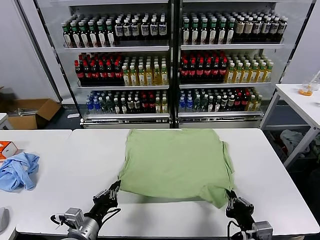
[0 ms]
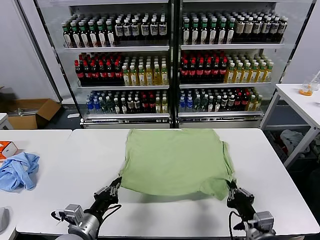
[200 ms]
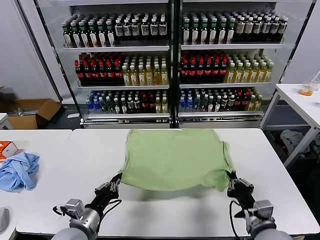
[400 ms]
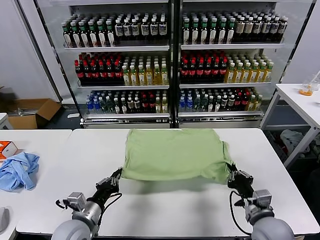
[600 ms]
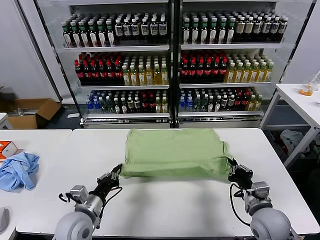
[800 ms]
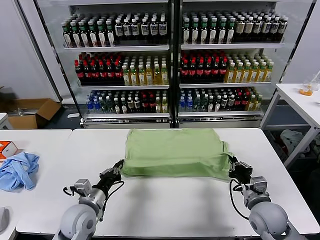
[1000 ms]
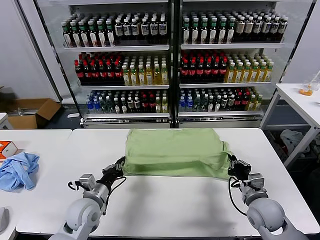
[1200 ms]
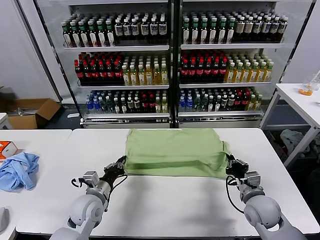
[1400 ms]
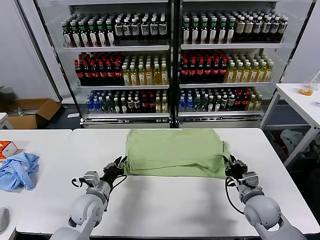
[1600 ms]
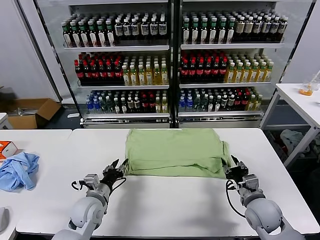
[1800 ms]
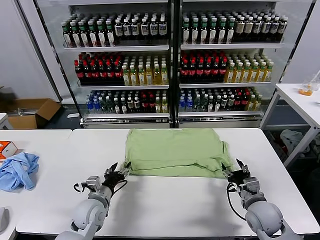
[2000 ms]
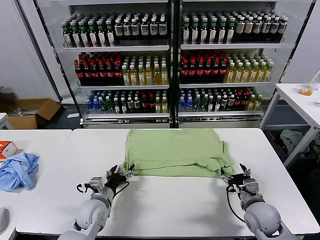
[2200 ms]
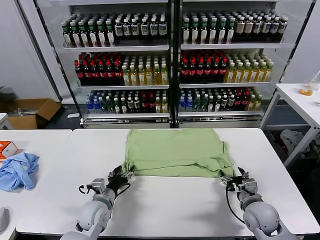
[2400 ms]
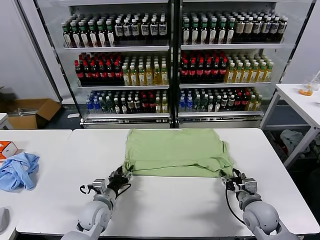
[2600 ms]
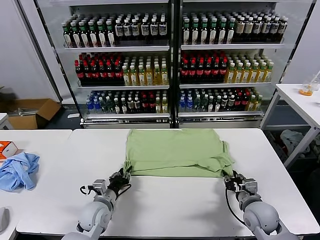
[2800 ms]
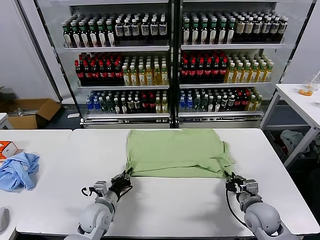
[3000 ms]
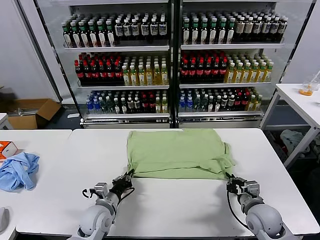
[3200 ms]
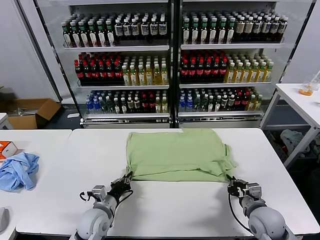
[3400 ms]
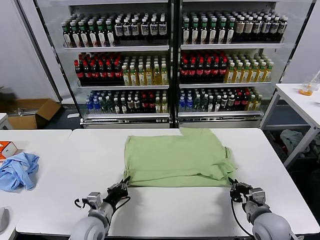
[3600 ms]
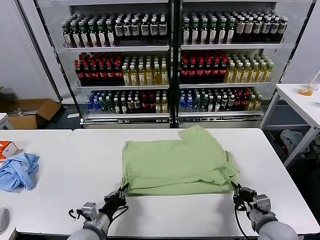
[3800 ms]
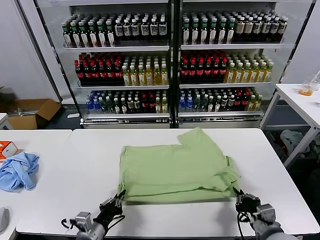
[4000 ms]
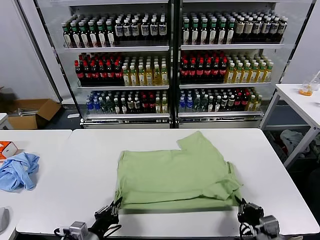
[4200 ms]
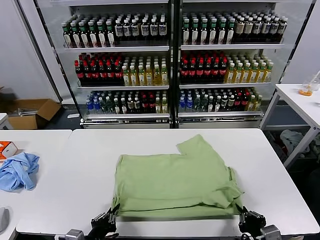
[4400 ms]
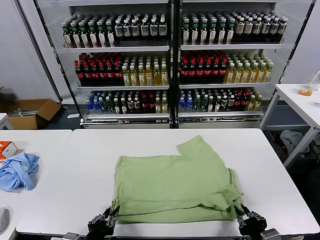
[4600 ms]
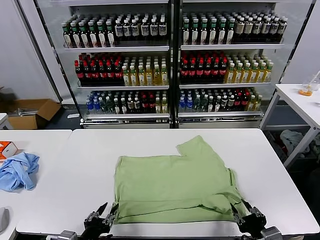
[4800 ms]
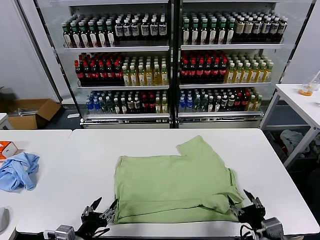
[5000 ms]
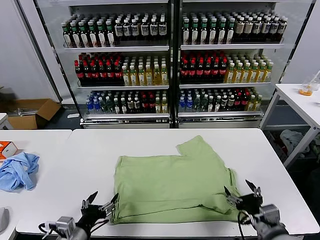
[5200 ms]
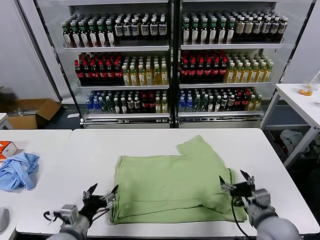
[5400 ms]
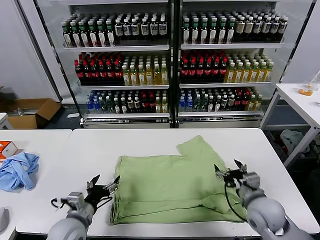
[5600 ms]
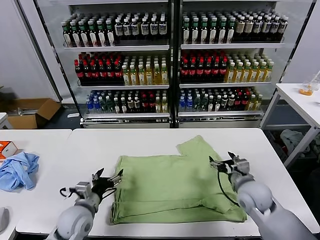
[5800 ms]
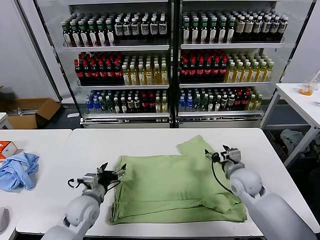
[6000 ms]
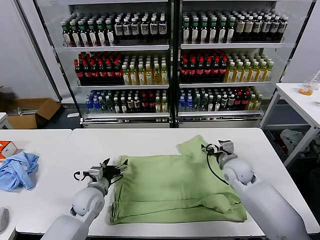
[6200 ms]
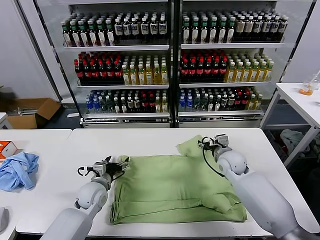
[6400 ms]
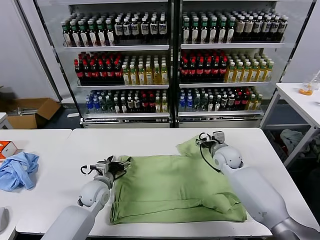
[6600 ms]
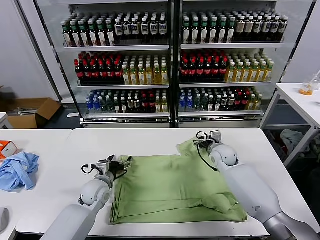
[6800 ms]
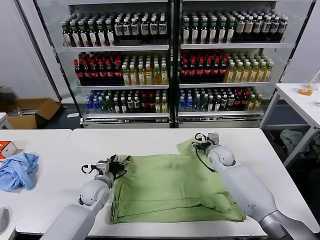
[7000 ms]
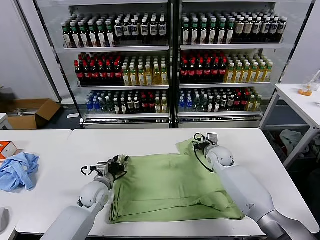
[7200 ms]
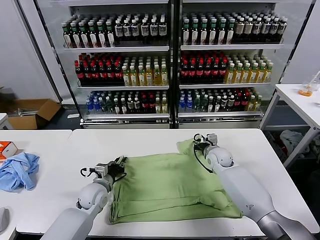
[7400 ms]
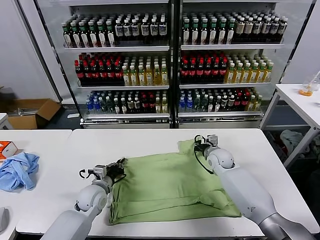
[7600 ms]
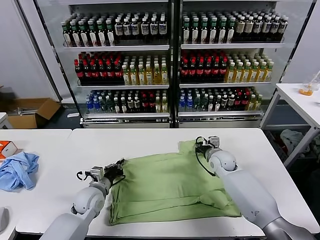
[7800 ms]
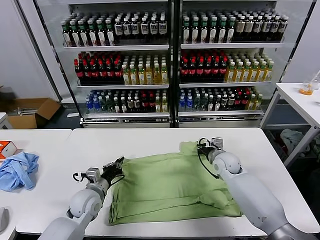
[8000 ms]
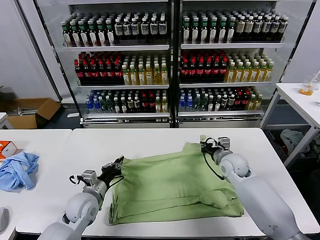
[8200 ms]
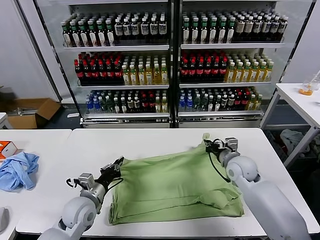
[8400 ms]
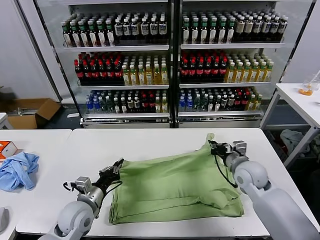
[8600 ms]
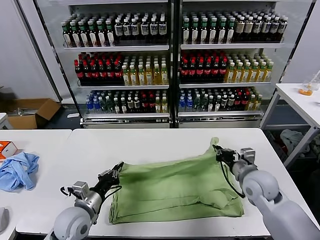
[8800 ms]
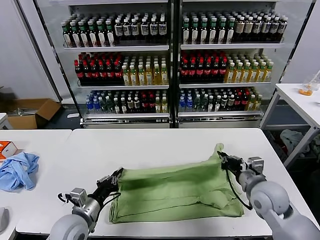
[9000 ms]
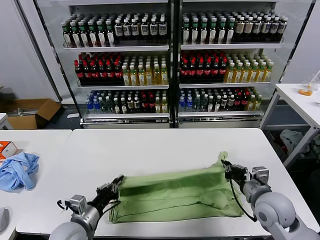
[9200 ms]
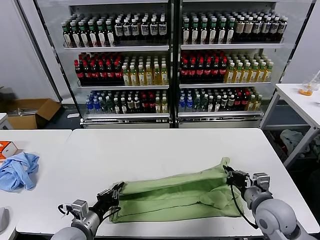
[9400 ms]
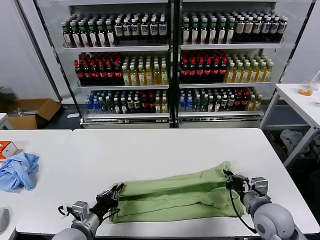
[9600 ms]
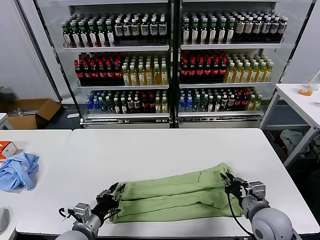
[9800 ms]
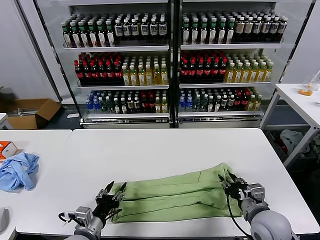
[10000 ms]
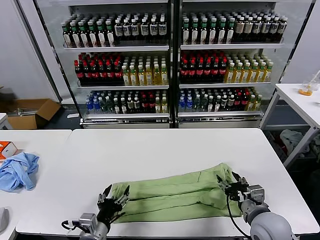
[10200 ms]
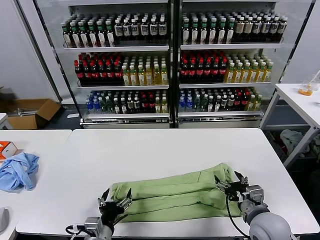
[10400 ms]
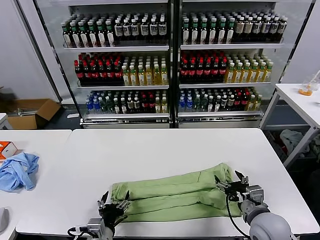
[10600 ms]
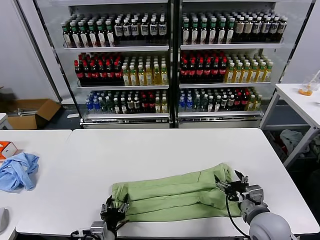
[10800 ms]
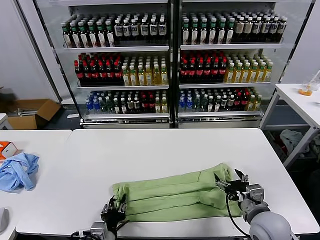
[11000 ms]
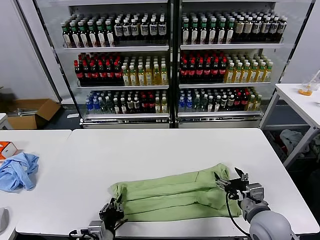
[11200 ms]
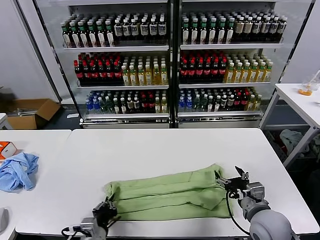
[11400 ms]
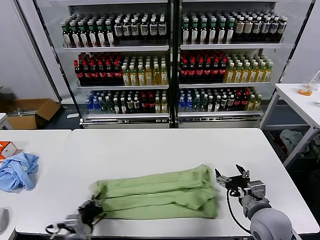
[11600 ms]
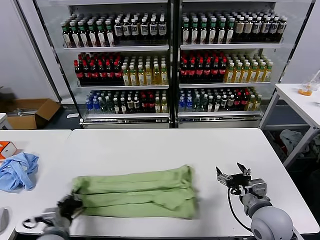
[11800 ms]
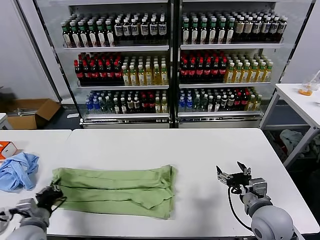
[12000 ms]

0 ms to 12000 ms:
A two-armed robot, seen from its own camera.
Task of the whole recording: fold and organize the clothes.
Step, 0 ms to 1800 ms: use both grippers to drag the lower edge of the fabric forward and fold it over the upper edge.
Step, 2000 ms to 4800 ms: Drag the clothes downward with both gripper.
Step, 5000 ms to 7600 ms: use both grippers simultaneously to clamp the upper edge of the clothing fabric.
Step, 7800 ms to 10000 ms: use both grippers to drag the upper edge of the fabric backward and fold it over the lower edge.
Step, 10200 ms to 11000 ms: use the left gripper to clamp the left edge of the fabric.
0 ms to 1600 ms: Both grippers travel together forward, about 15 cm. The right gripper opens its fingers; the left gripper opens its fingers.
1600 ms to 3000 ms: The left gripper opens, then closes once more. Meanwhile the right gripper closes.
3000 ms to 4400 ms: The grippers both shift backward by about 15 cm.
4400 ms to 6000 ms: The grippers both shift forward by some 25 cm. The left gripper opens up. The right gripper opens.
6000 ms to 7600 ms: The right gripper travels forward by roughly 10 cm, and closes. Meanwhile the left gripper changes place by approximately 5 cm, and closes up.
7600 ms to 9000 ms: The right gripper heads backward and upward, covering some 20 cm. The left gripper moves backward and upward, approximately 15 cm.
9000 ms to 10400 ms: The right gripper travels backward by approximately 5 cm, and opens its fingers, while the left gripper travels backward and to the right by some 10 cm, and opens.
10400 ms to 12000 ms: The left gripper is displaced to the left by about 20 cm, and closes up.

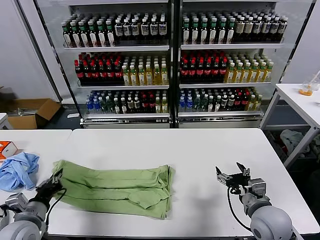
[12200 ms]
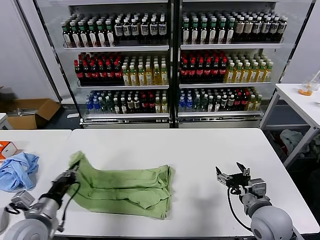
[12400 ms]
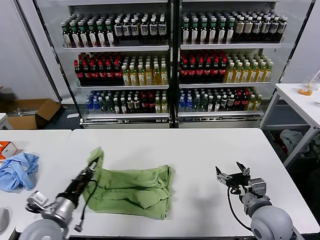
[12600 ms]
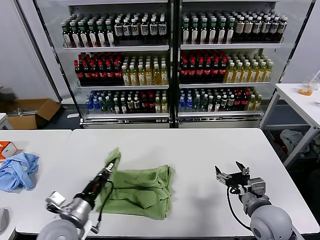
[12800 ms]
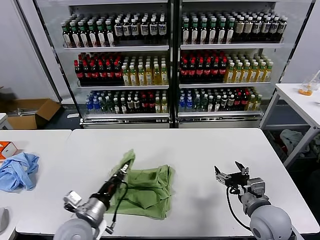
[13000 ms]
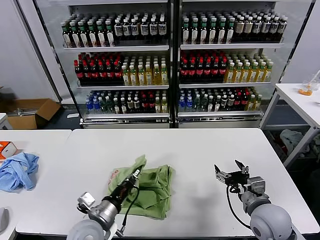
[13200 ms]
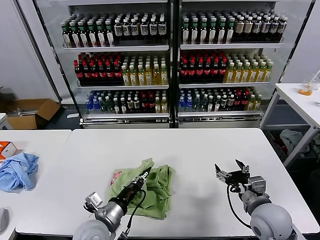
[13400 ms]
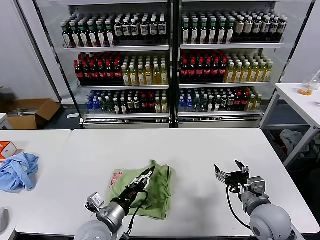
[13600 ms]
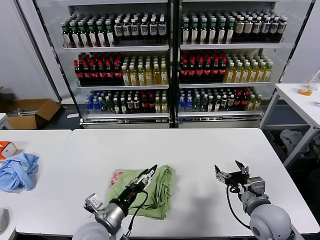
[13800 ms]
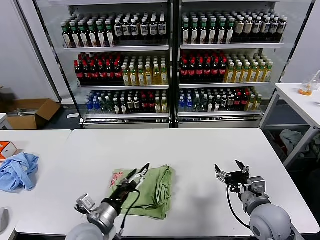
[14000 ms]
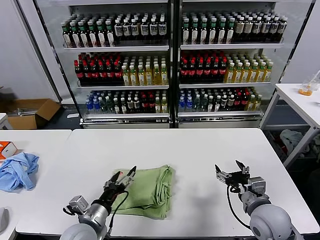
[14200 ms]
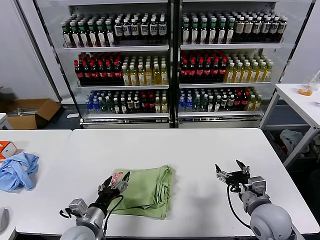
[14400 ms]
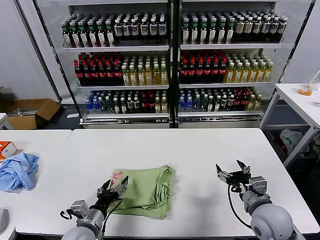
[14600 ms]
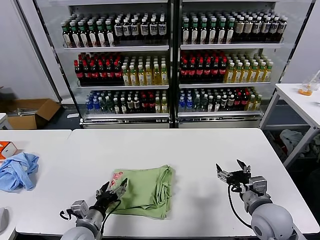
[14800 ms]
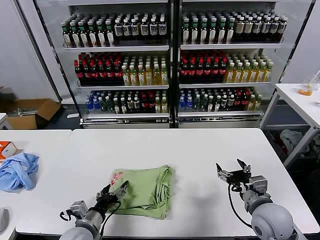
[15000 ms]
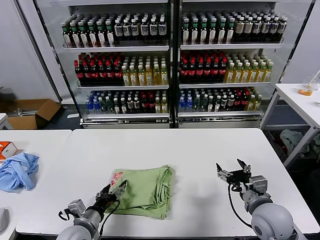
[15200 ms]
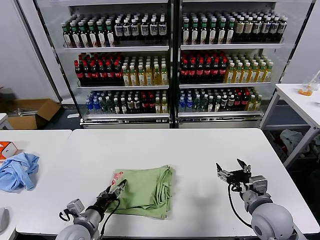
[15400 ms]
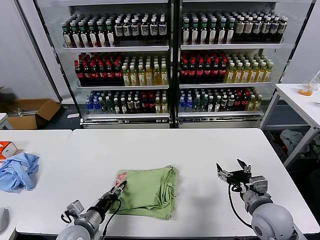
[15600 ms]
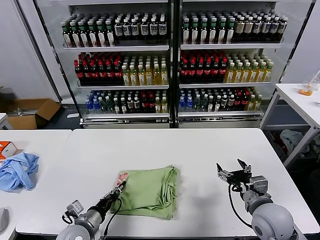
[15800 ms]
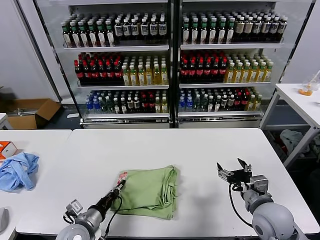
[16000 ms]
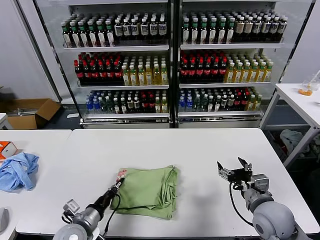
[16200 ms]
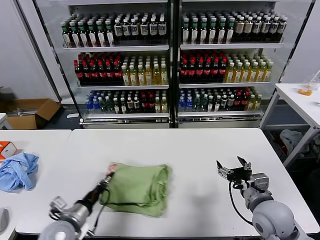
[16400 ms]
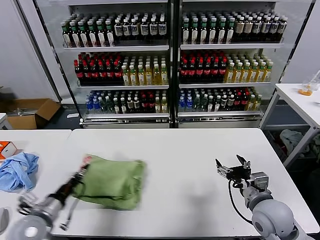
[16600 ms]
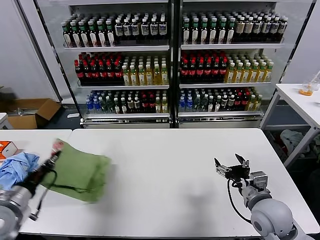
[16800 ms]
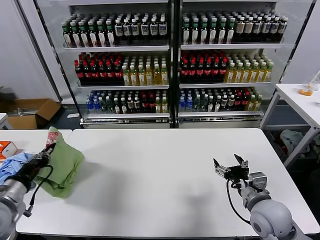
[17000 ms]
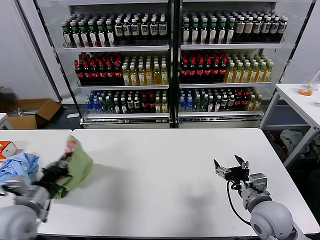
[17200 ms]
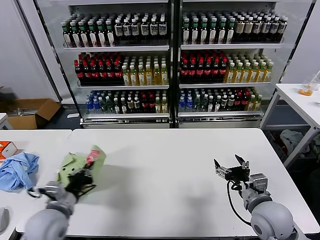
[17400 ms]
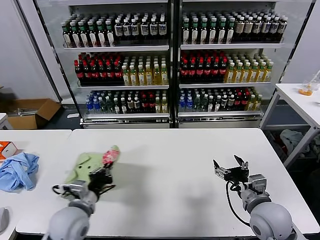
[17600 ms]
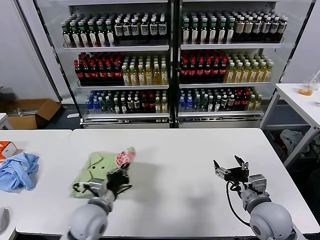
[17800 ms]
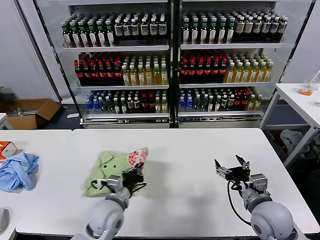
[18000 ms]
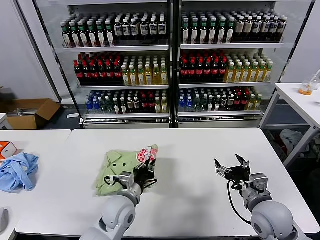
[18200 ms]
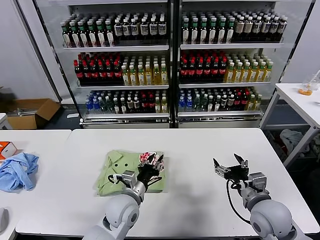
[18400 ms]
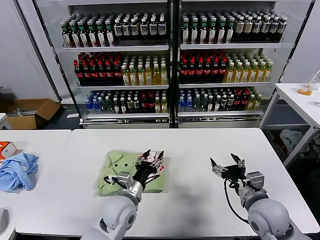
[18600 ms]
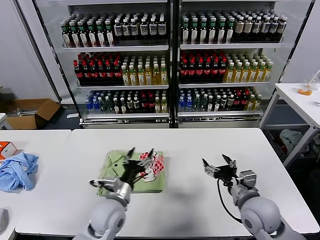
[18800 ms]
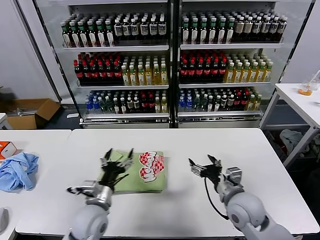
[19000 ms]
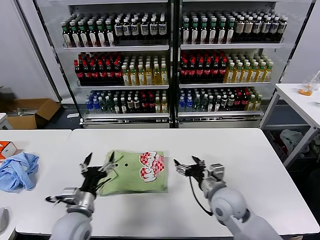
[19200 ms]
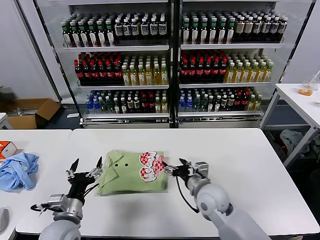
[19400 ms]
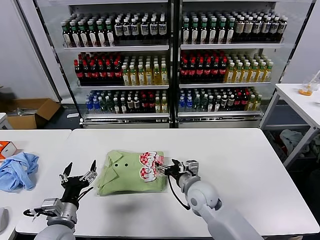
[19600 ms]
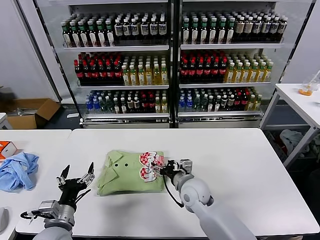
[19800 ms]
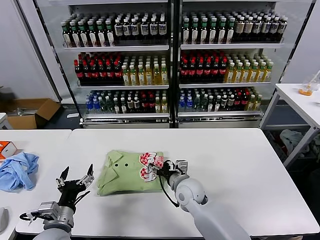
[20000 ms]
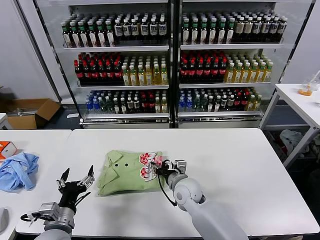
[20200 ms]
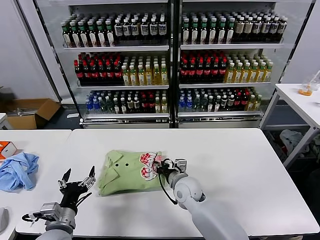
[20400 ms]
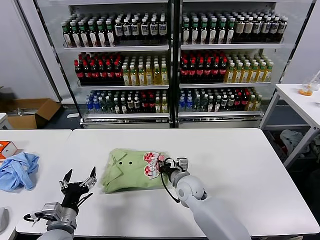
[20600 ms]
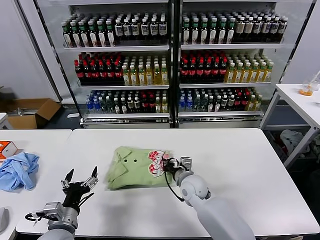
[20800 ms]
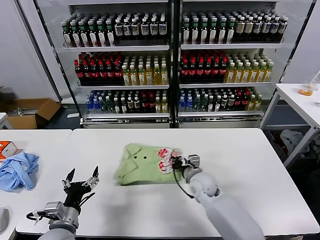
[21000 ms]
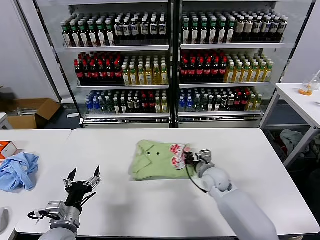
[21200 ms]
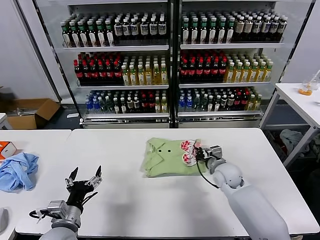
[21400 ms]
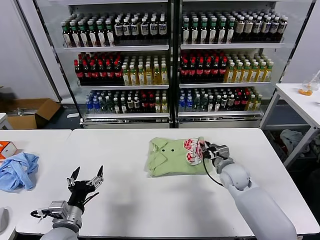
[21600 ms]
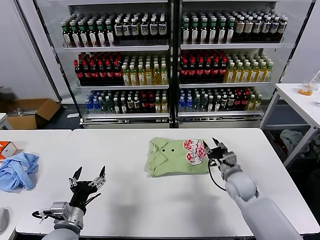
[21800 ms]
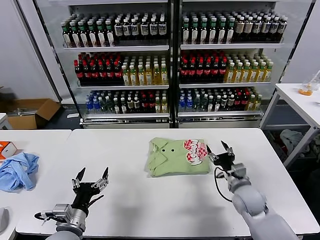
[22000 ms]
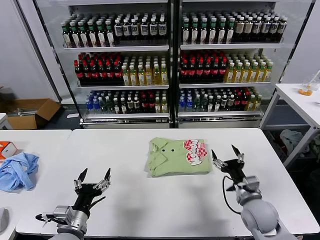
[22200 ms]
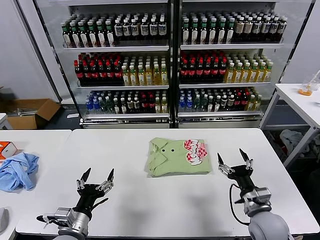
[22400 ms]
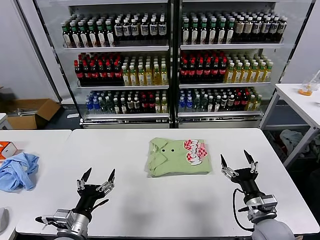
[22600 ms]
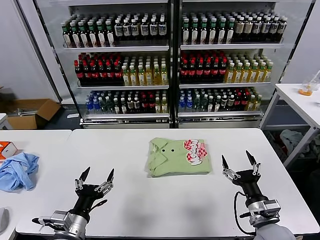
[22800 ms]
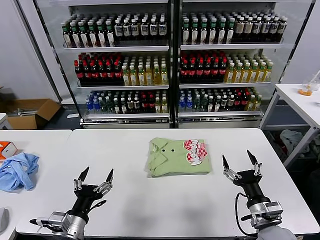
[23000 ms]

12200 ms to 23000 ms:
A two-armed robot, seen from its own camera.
Task of the whole recording: fold and organize the clothes.
Step, 12200 ms to 13600 ms: use the left gripper to drag the left edge of the fabric to the left and folds it over the right edge.
Step, 13800 ms to 18400 ms: Flip the folded clothes over with left gripper.
Step, 18600 ms to 21600 ms: Drag the clothes to the center of the table.
12200 ms to 13800 ms: The left gripper travels to the right by about 20 cm, and opens.
13800 ms to 15200 ms: The left gripper goes approximately 10 cm to the left and downward.
15200 ms to 16800 ms: The left gripper goes roughly 20 cm to the left and upward, and closes up.
16800 ms to 18400 ms: The left gripper is displaced to the right by about 30 cm, and opens.
18400 ms to 20000 ms: The left gripper travels to the left and backward by about 20 cm, and opens up. Meanwhile the right gripper is displaced to the left and forward by approximately 25 cm.
20000 ms to 21400 ms: The right gripper heads to the right and forward, covering about 15 cm, and closes.
21400 ms to 23000 ms: The left gripper changes place by approximately 5 cm; the right gripper moves backward, roughly 25 cm, and opens.
